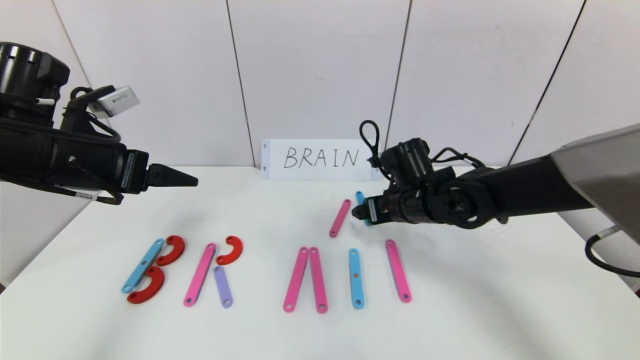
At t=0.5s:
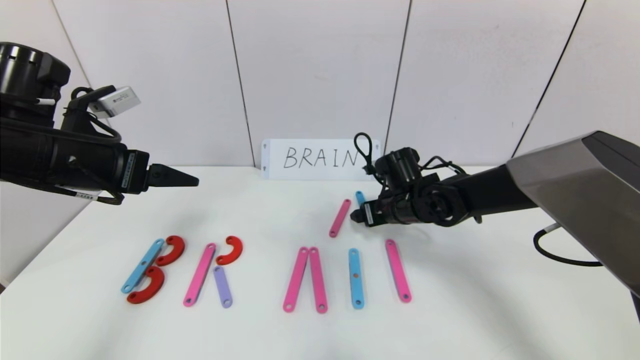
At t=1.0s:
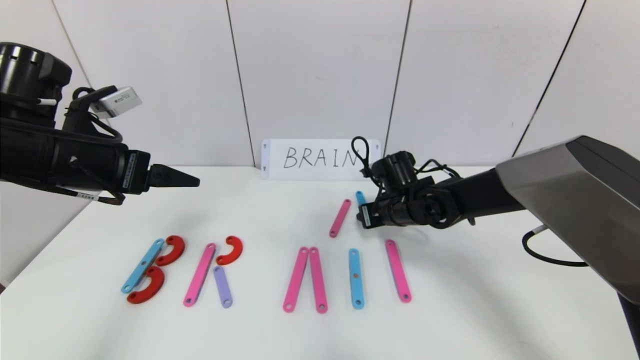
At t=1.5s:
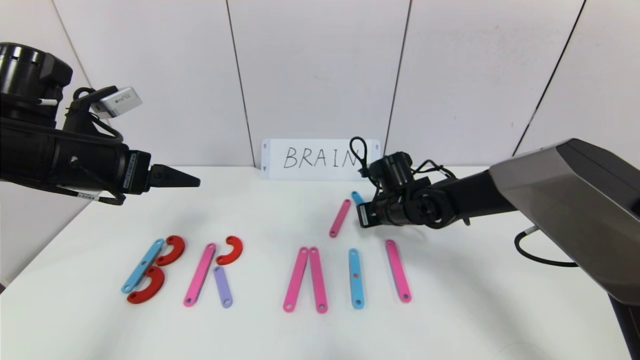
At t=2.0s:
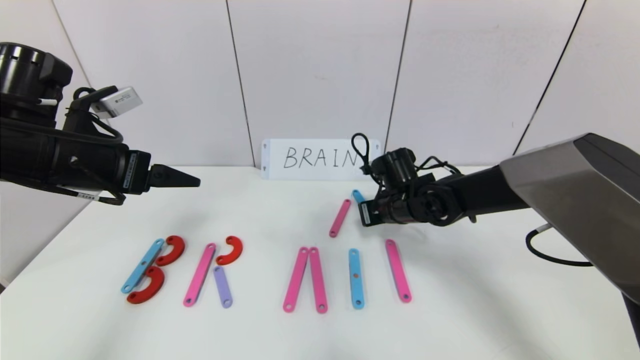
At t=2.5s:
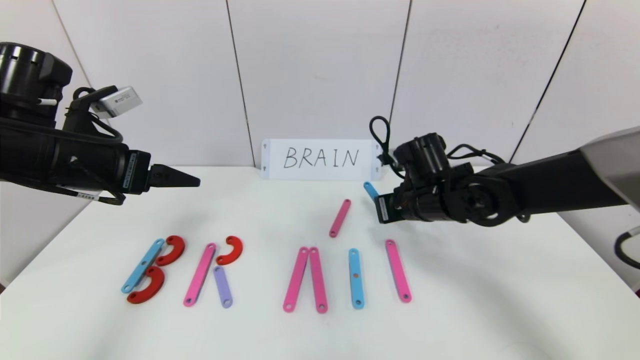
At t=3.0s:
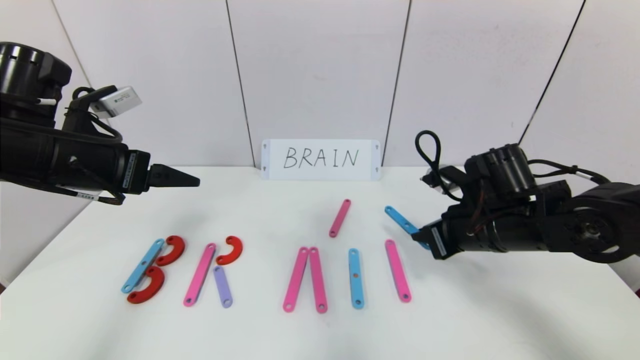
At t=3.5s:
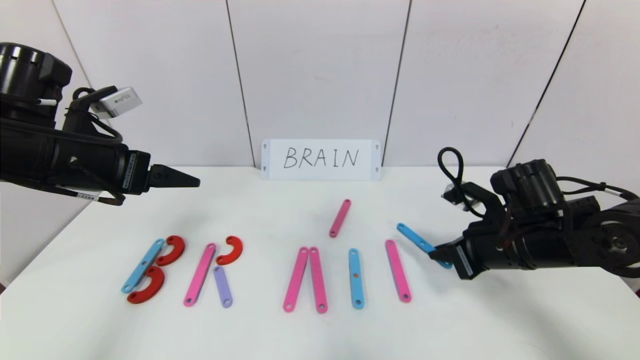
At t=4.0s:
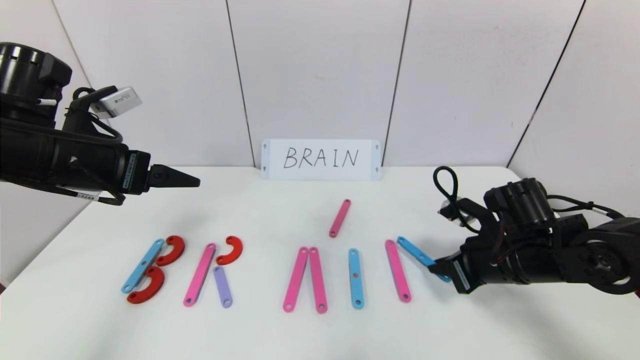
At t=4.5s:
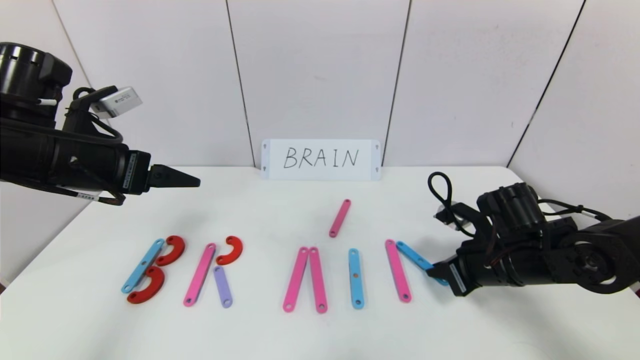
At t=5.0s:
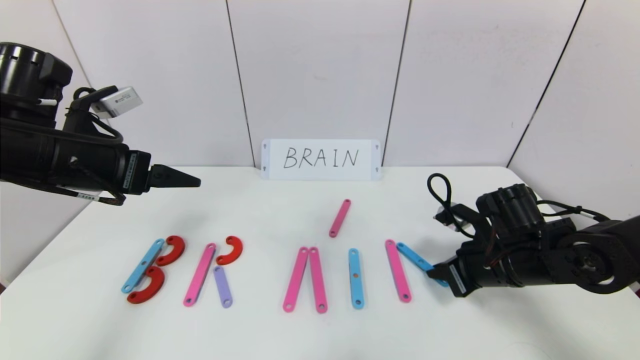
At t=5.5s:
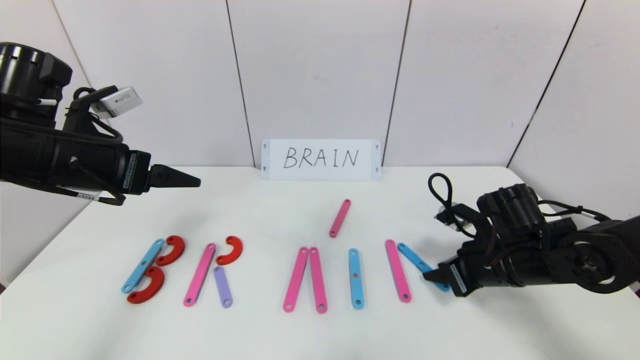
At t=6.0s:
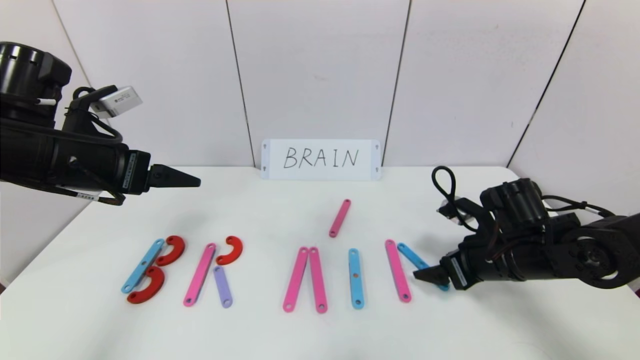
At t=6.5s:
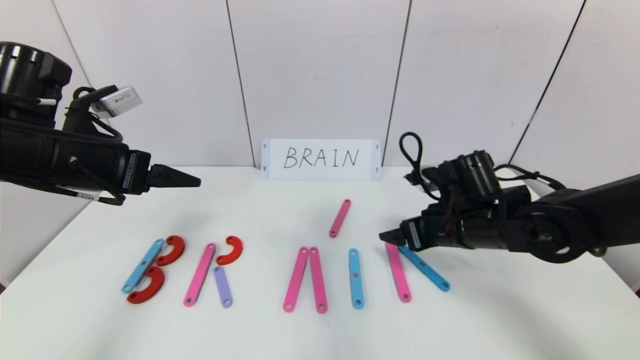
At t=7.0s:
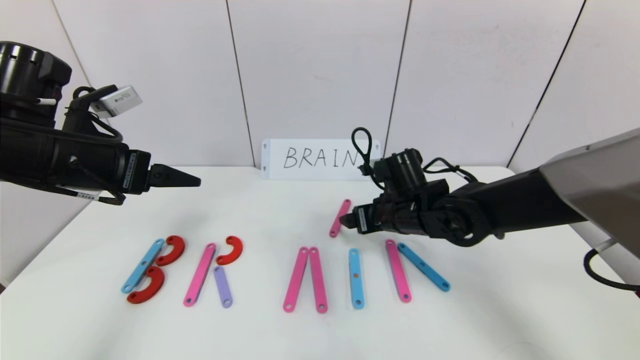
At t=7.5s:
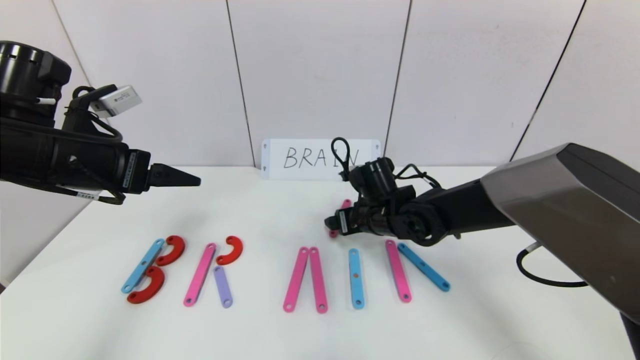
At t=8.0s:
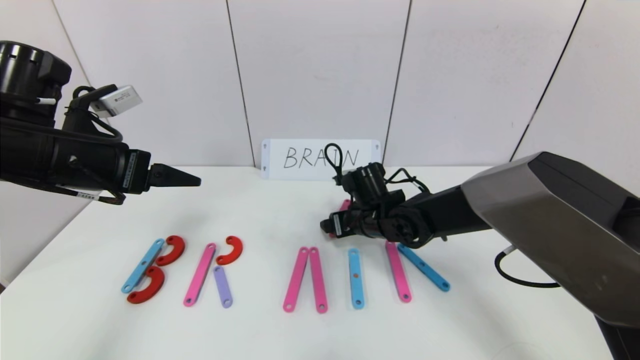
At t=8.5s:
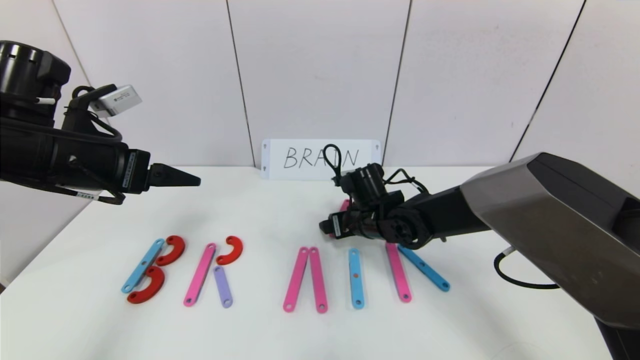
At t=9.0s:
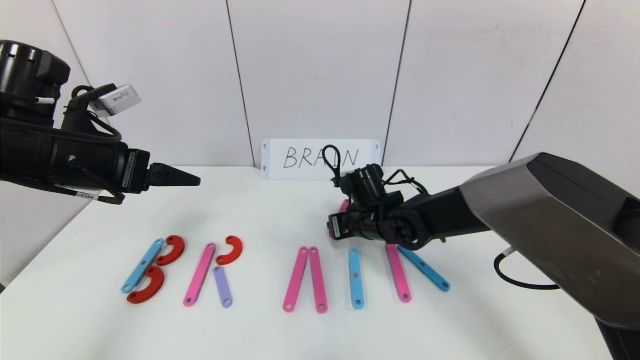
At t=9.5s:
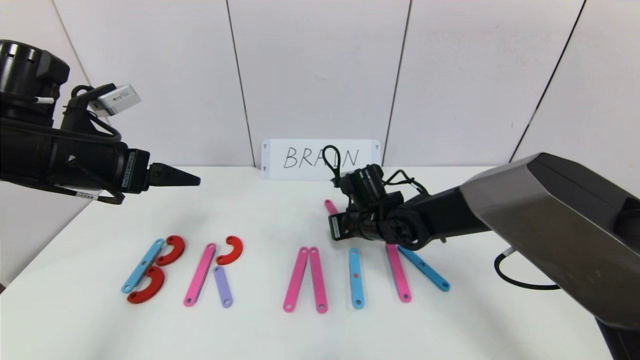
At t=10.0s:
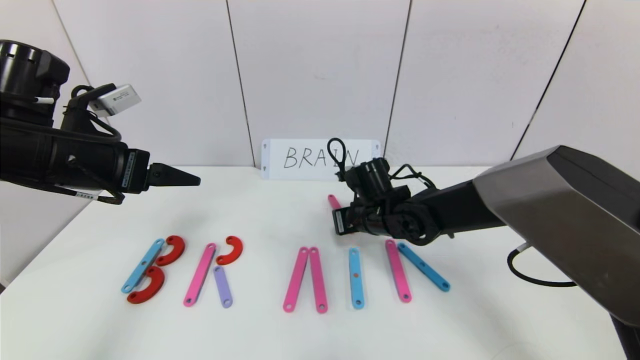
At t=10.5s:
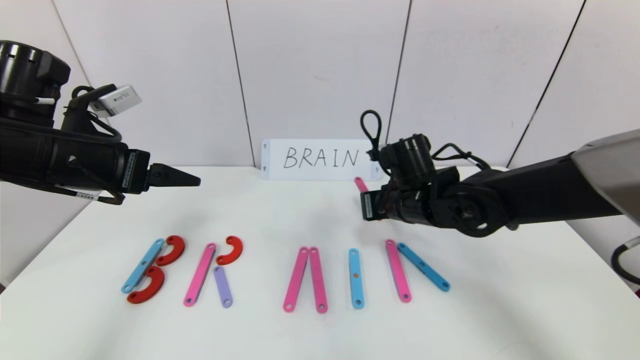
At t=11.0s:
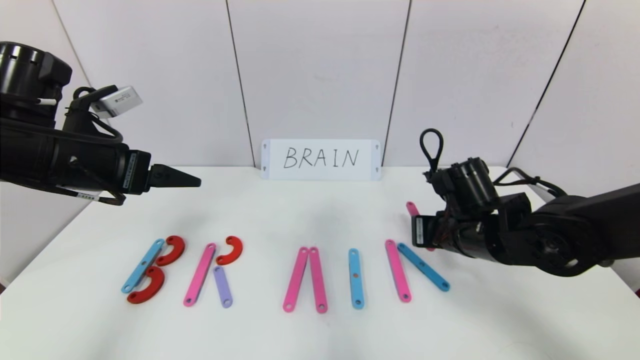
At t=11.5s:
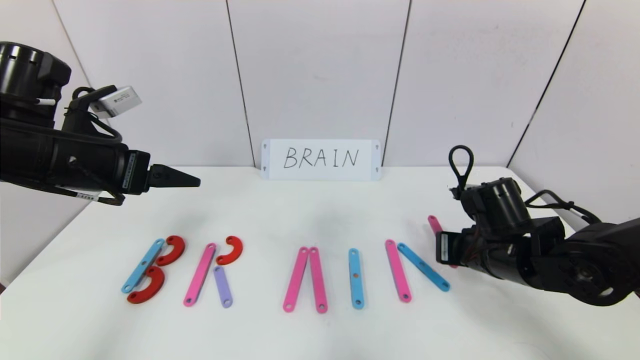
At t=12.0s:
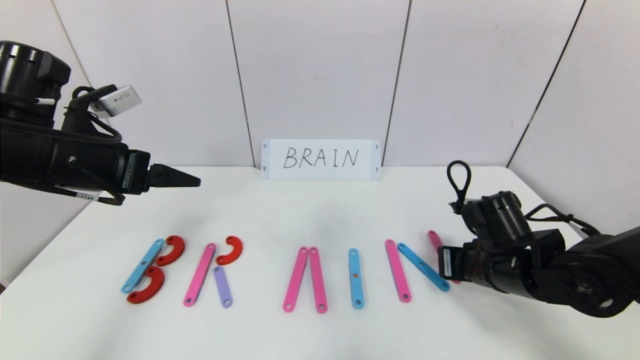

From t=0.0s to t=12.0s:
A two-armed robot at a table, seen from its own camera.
Task of the whole recording: rearrange the word baai as brain.
From t=0.0s to t=2.0s: The right gripper closes.
From t=2.0s to t=4.0s: The right gripper moves backward and to the right, approximately 15 cm.
From t=4.0s to t=6.0s: The right gripper opens.
From t=6.0s to t=8.0s: The right gripper goes roughly 20 cm to the left and forward.
From t=8.0s to t=10.0s: The right gripper closes its fingers.
From t=10.0s to t=12.0s: The right gripper heads to the right and backward, covering some 20 cm.

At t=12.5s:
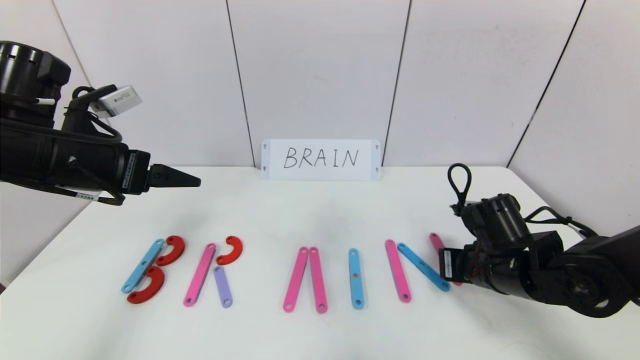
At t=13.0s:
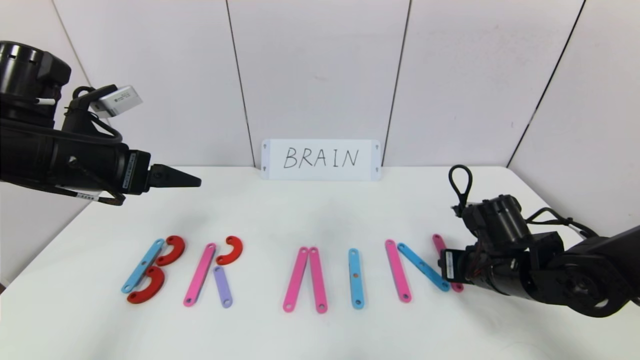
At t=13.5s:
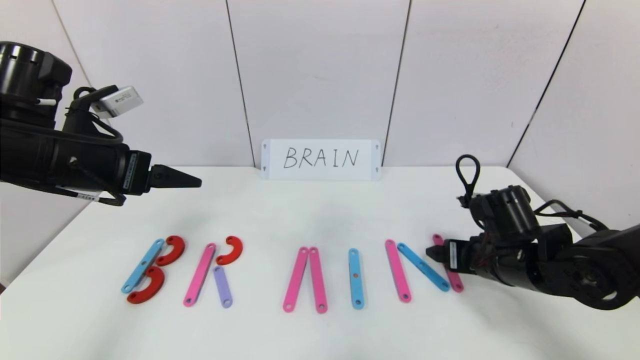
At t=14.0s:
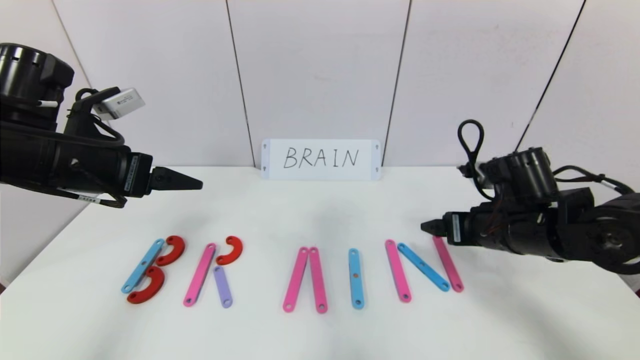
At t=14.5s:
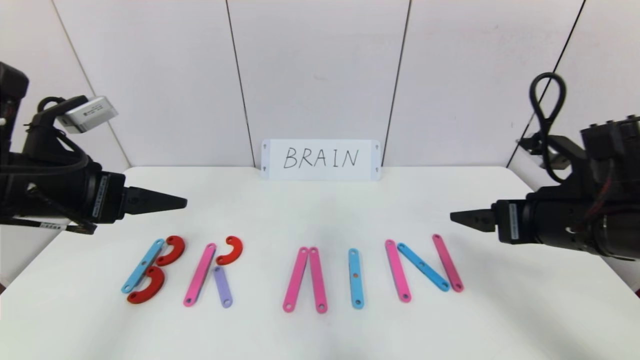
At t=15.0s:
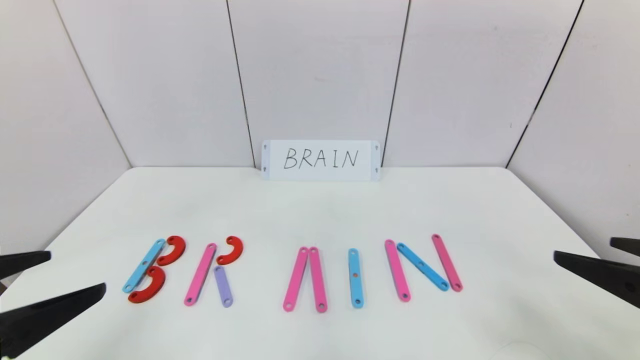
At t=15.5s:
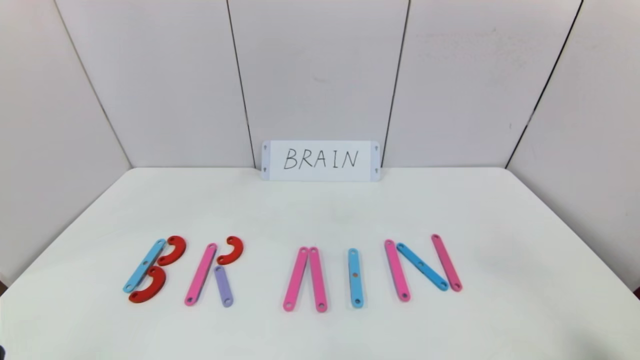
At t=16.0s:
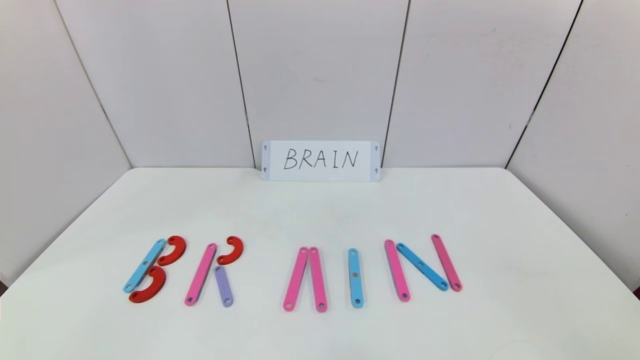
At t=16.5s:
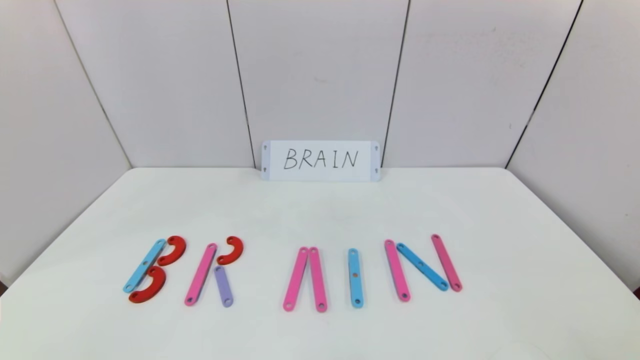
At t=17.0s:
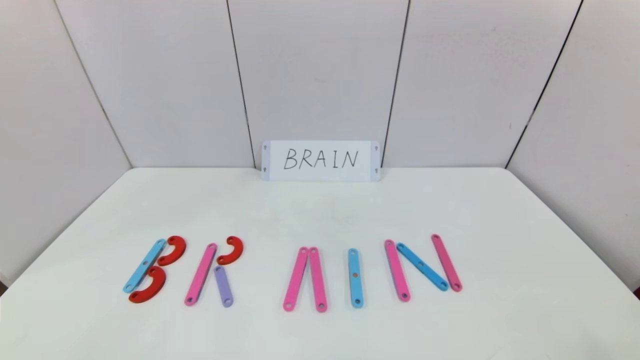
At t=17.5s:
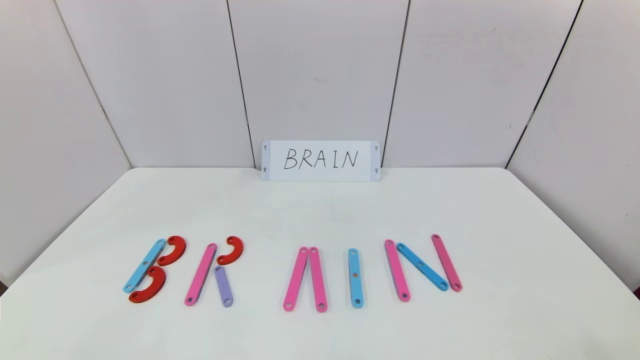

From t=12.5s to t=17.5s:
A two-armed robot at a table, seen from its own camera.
Task of the whole recording: rearrange the word baai as brain.
From t=12.5s to t=15.0s: The left gripper is displaced backward by some 20 cm. The right gripper shifts approximately 25 cm backward, upward and to the right, and opens its fingers.
From t=15.0s to t=17.5s: The grippers both shift downward and backward by roughly 20 cm.

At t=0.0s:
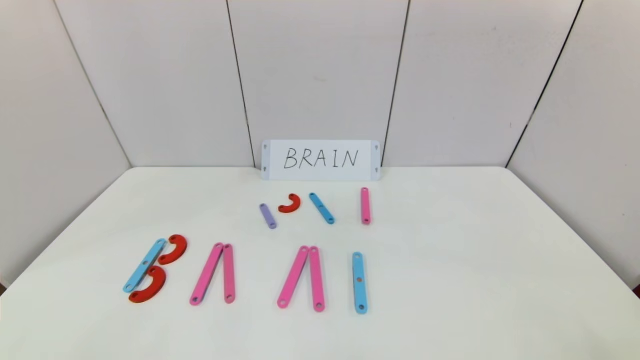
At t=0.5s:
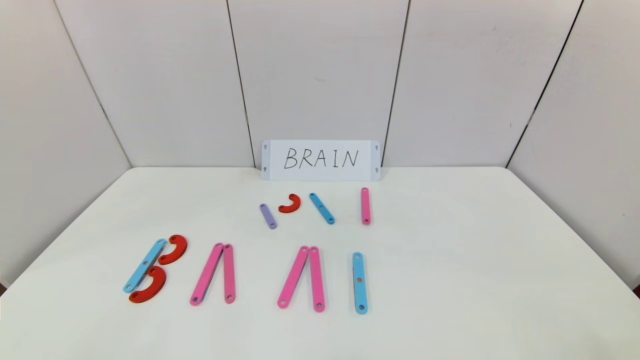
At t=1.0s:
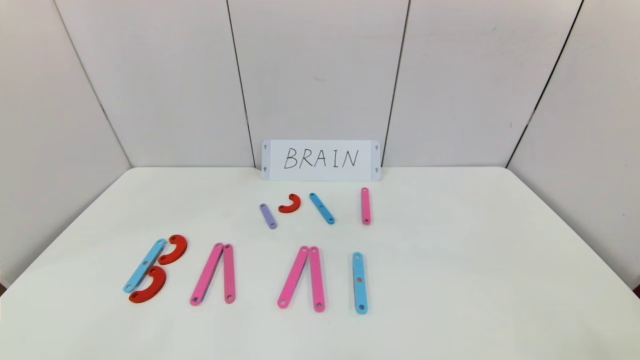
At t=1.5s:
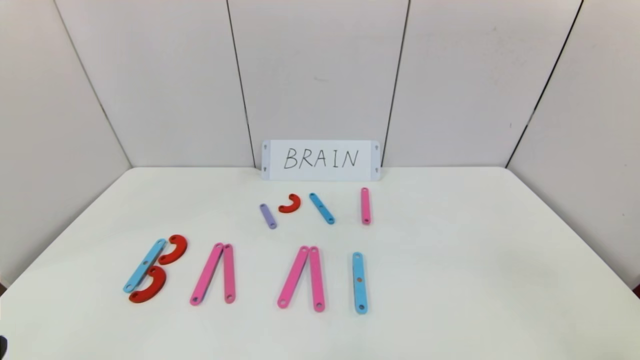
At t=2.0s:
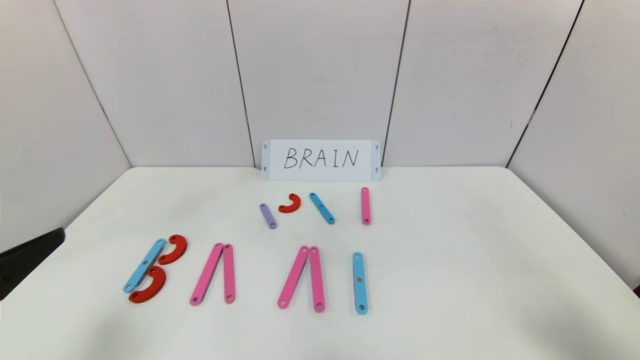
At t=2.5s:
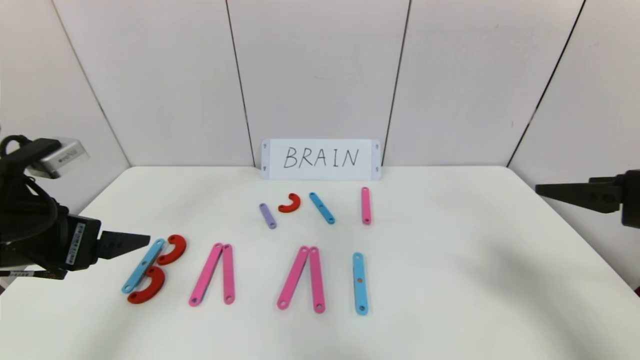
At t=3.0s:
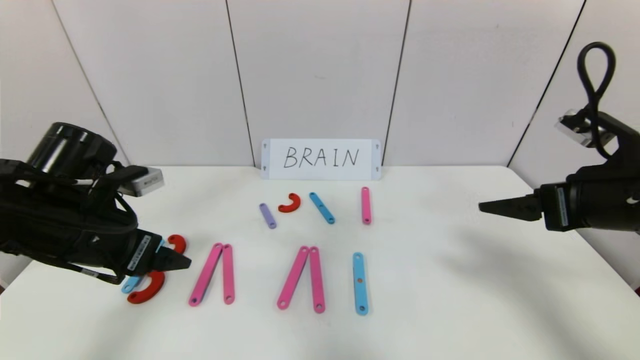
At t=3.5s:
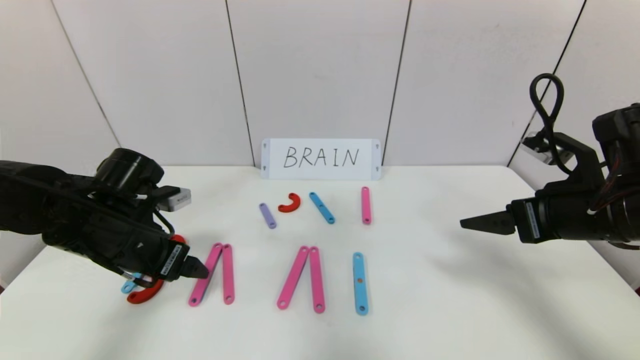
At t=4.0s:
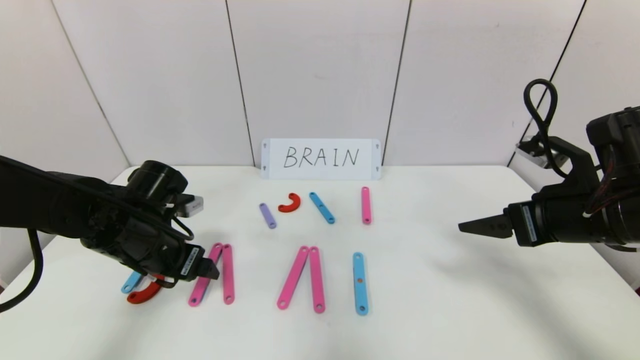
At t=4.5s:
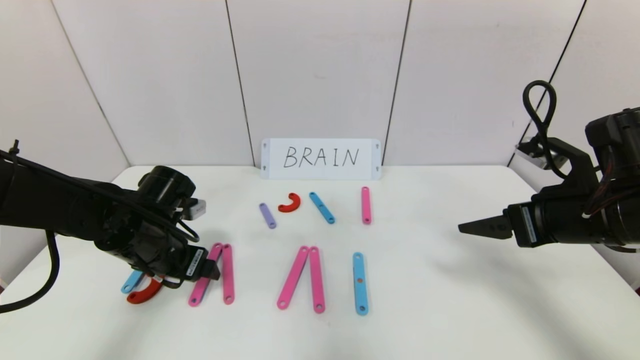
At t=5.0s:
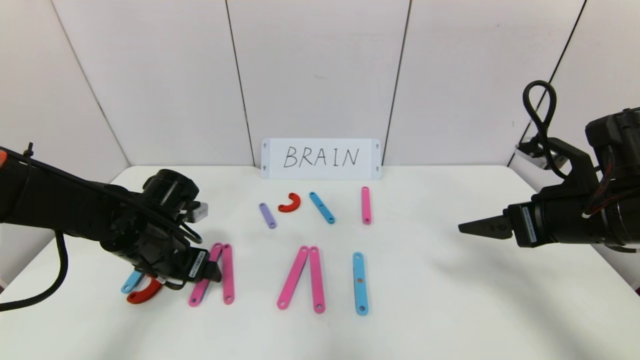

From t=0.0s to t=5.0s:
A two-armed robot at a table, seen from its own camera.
Task of the whole recording: rearrange the word baai as brain.
From t=0.0s to t=2.5s: The two grippers go about 25 cm forward and upward.
From t=2.5s to t=5.0s: The left gripper goes some 15 cm downward, forward and to the right, while the right gripper goes some 10 cm forward and downward.
